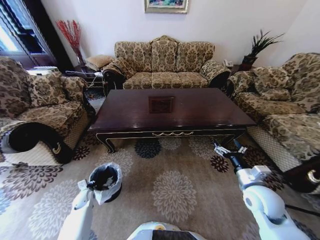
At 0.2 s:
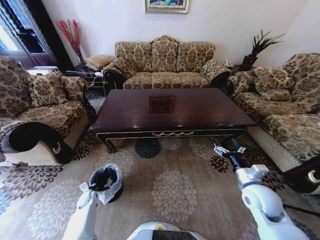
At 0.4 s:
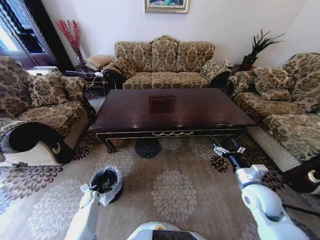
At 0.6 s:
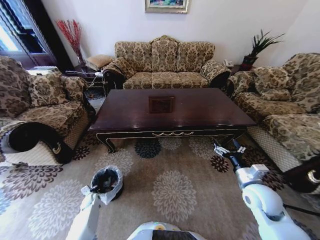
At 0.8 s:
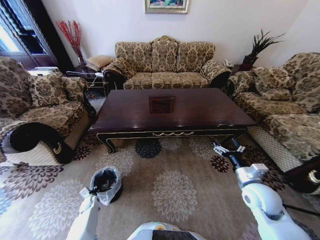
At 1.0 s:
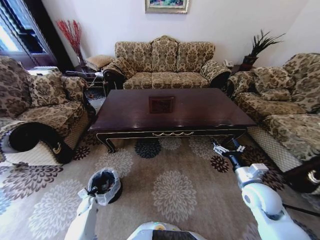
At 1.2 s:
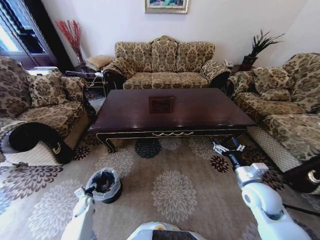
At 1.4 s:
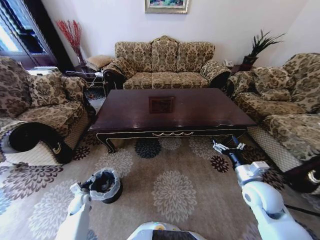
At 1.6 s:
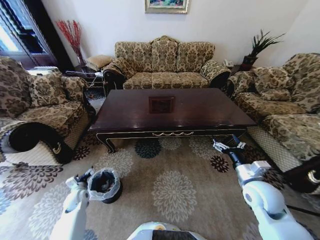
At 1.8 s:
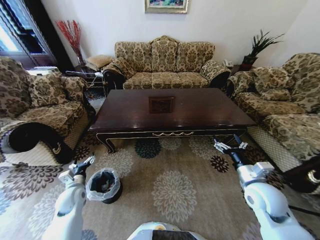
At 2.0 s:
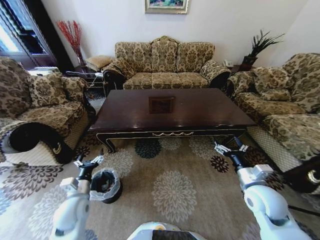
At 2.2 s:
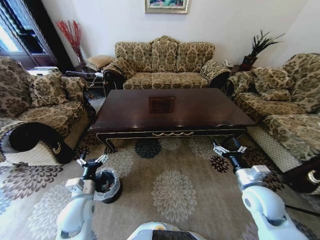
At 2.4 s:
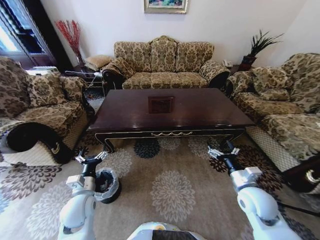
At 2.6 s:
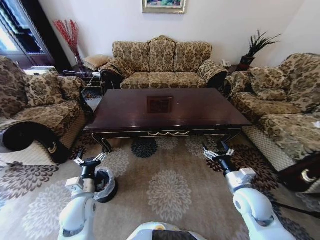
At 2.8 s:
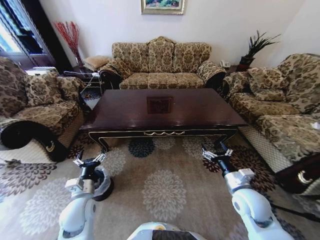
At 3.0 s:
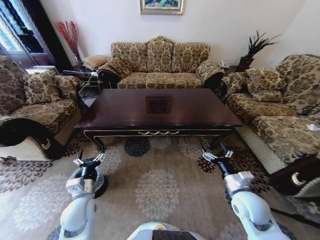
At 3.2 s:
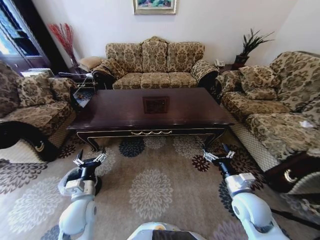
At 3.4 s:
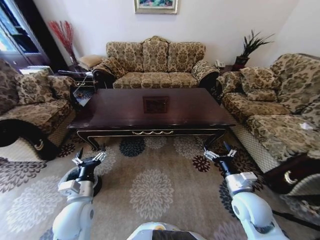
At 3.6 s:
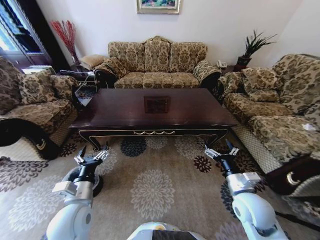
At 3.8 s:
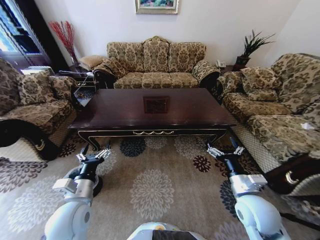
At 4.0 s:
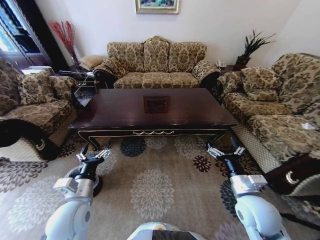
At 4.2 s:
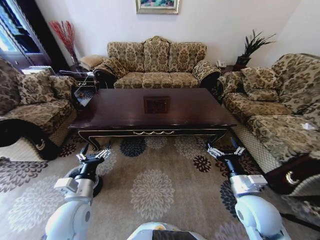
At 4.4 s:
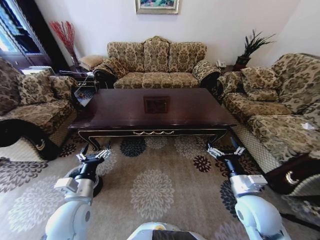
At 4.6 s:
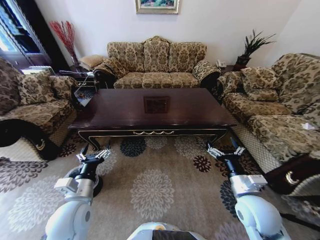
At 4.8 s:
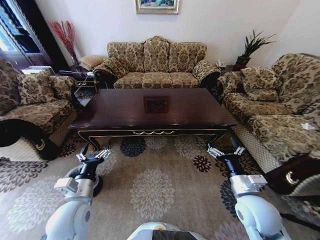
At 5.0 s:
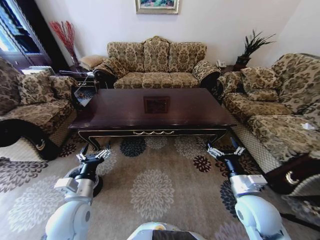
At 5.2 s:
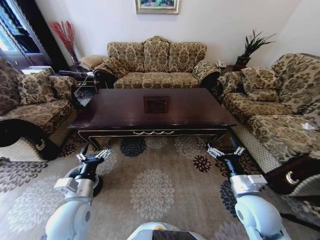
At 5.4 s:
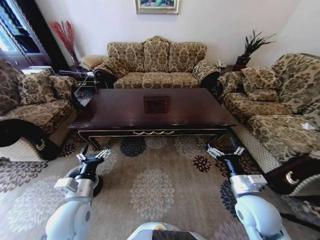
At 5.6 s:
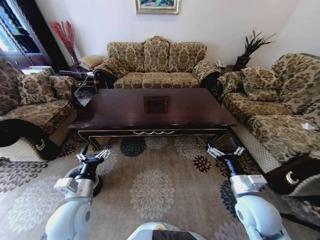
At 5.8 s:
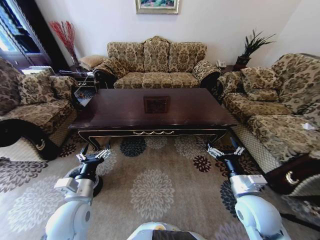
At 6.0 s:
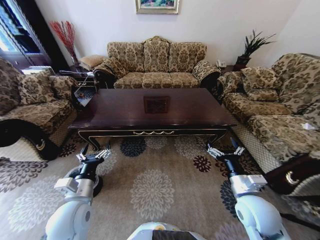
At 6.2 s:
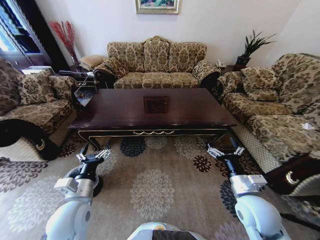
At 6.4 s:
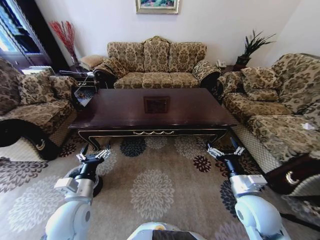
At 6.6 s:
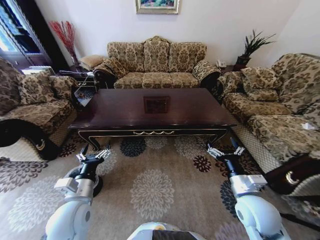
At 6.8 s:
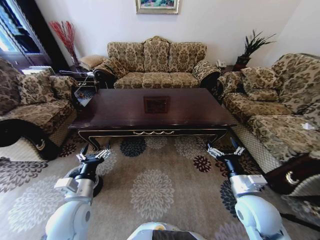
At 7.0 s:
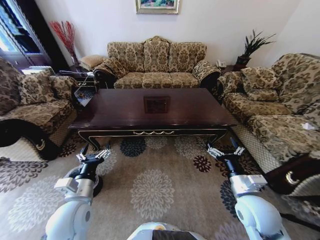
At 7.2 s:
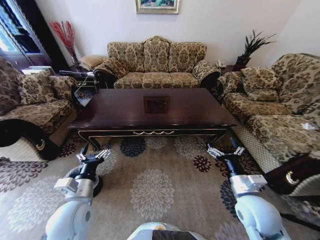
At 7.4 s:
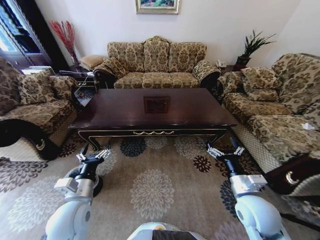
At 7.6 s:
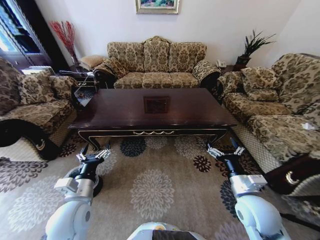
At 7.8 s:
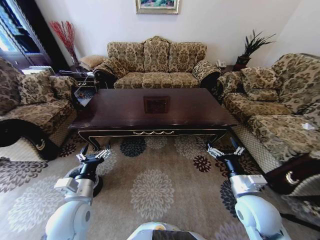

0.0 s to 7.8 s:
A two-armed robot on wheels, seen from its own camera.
Task of the whole recording: Move to the front of the table and place the trash on the table into the trash bin.
0.0 to 1.6 s: The left gripper moves upward, roughly 5 cm, and opens up.
1.6 to 3.2 s: The right gripper moves about 5 cm, while the left gripper moves upward, to the right and backward, about 25 cm.
3.2 to 4.6 s: The right gripper ends up some 5 cm from where it was. Meanwhile the left gripper heads upward, covering about 5 cm.
4.6 to 7.8 s: Both grippers stay put.
